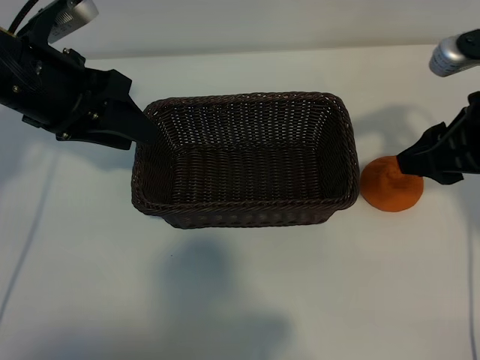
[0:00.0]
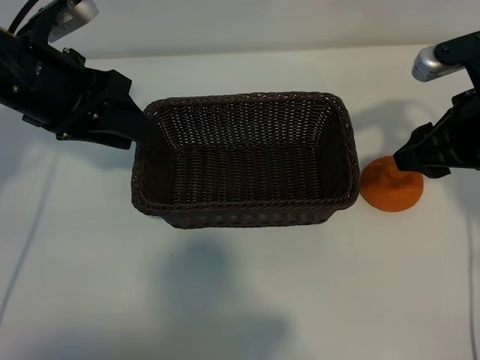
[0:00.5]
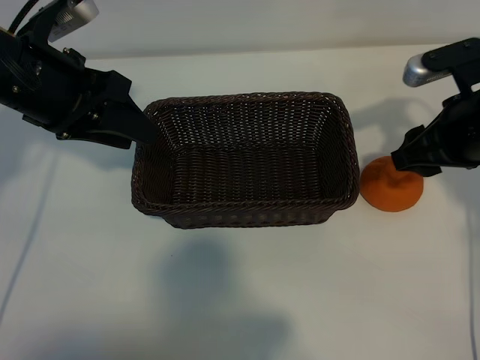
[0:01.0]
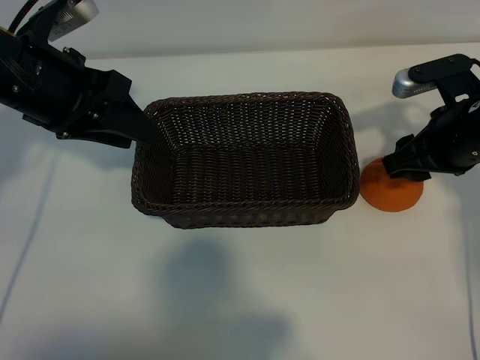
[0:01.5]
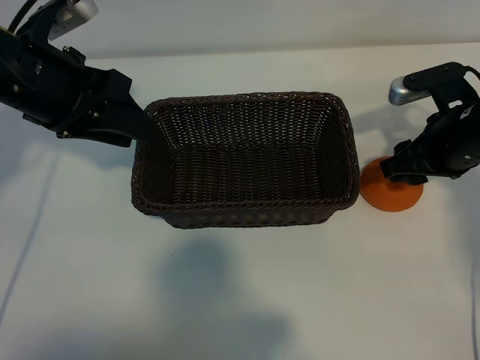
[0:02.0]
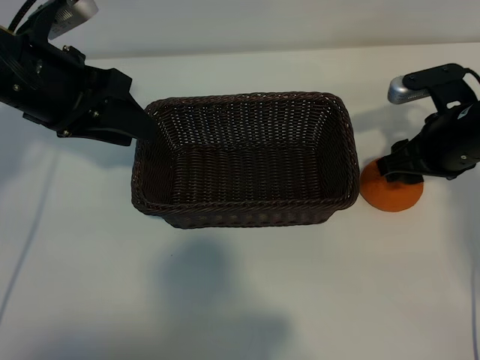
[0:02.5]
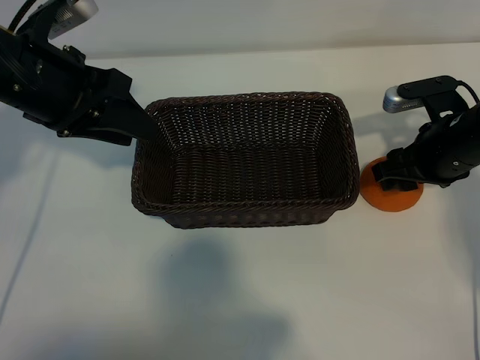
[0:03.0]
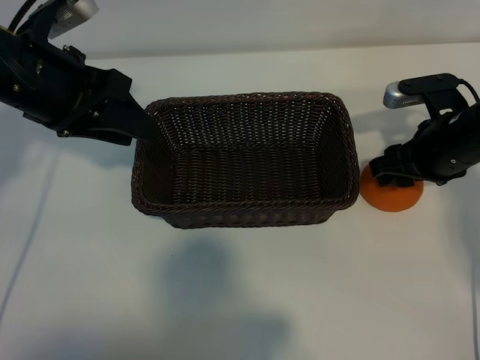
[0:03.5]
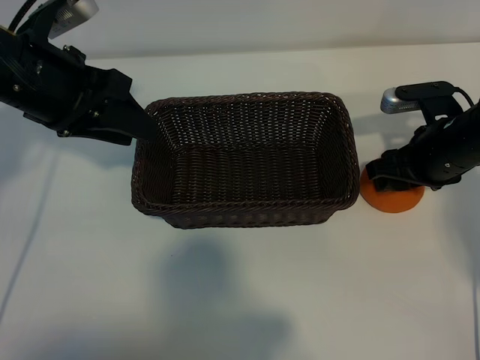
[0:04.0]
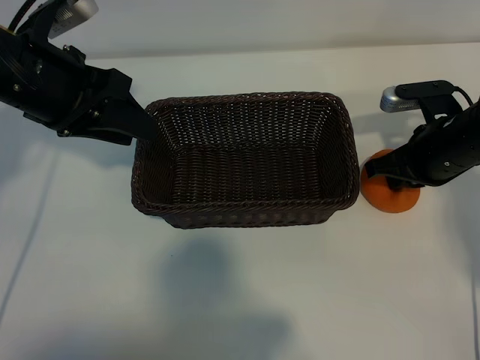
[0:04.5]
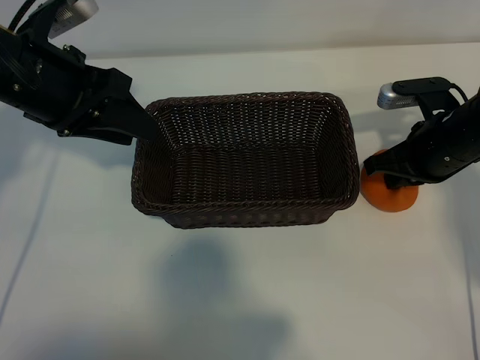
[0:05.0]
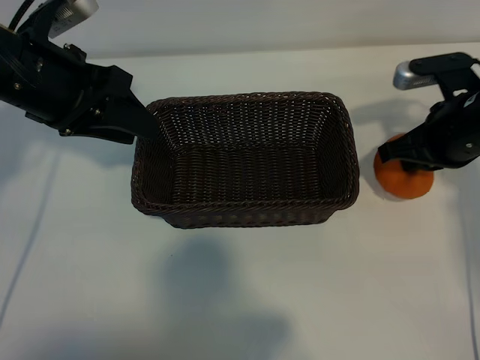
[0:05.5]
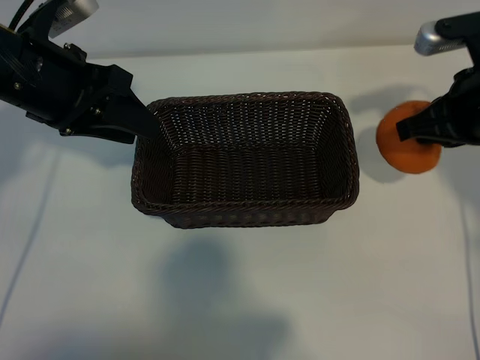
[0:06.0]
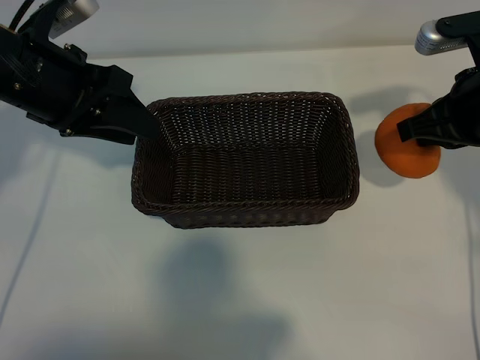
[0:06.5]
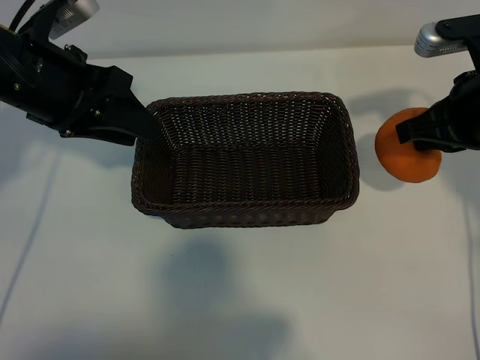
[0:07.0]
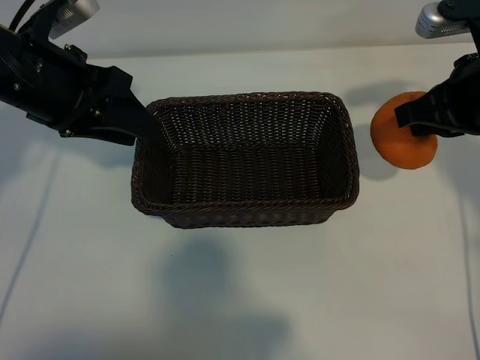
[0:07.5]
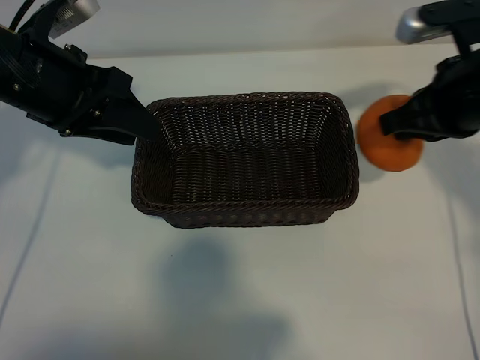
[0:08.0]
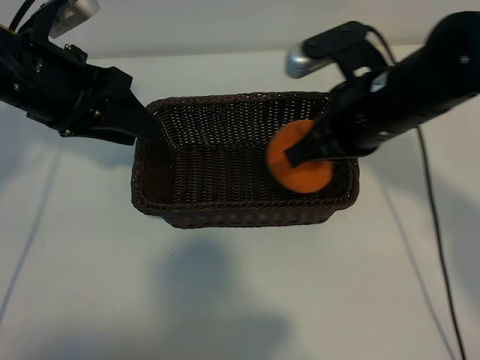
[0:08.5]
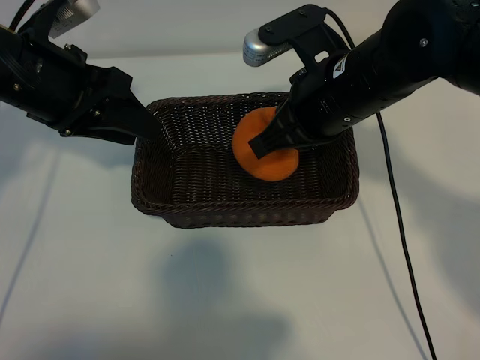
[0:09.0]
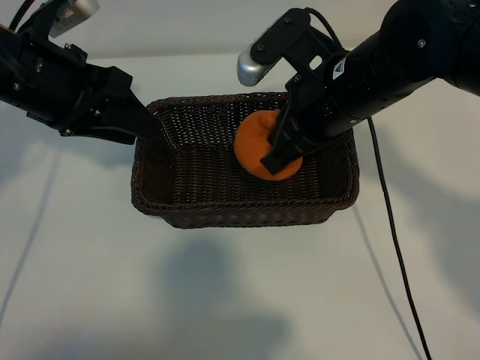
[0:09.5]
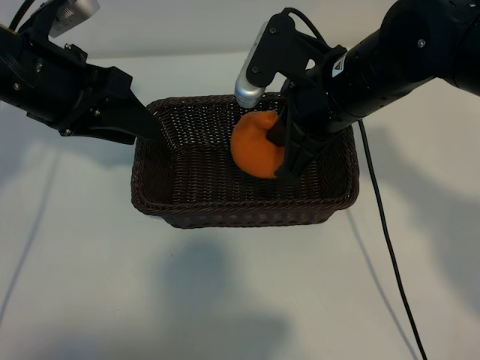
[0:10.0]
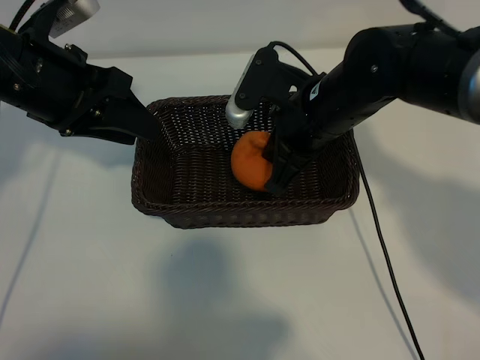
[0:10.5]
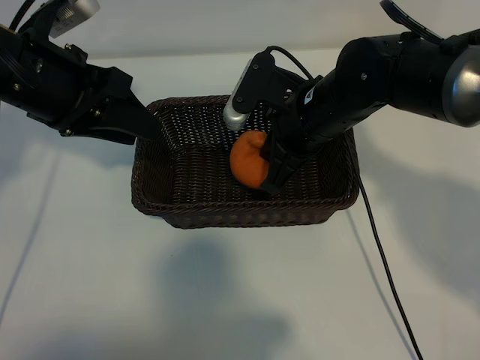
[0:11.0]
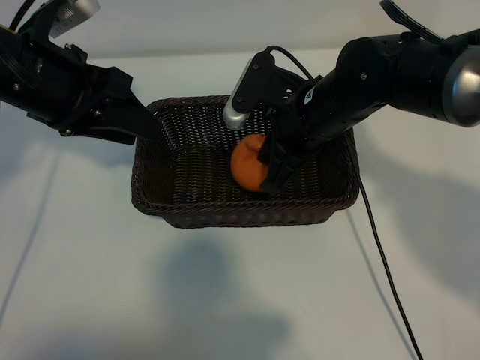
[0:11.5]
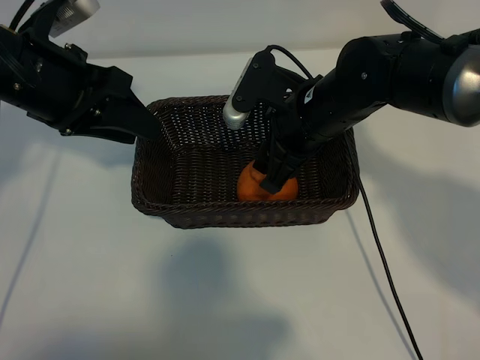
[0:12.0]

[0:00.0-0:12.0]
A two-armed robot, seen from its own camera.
Task of the whole recording: pick up the orange and put it into the basket.
Step, 0:00.0 to 0:04.5: Grasp the orange with right gripper.
